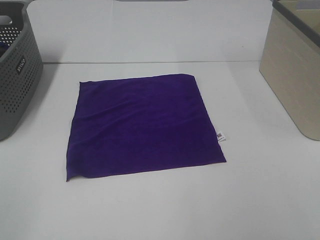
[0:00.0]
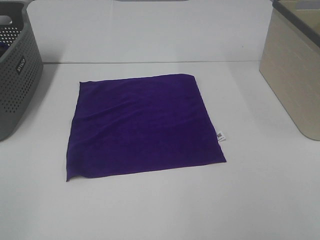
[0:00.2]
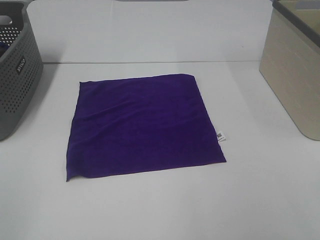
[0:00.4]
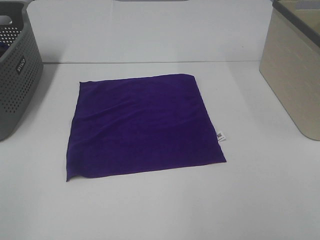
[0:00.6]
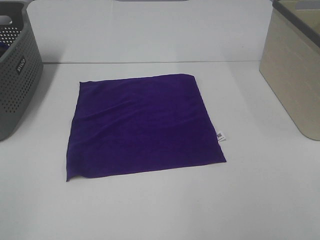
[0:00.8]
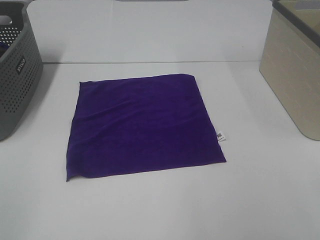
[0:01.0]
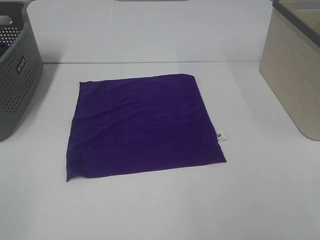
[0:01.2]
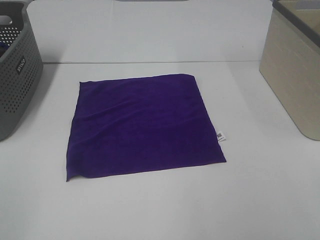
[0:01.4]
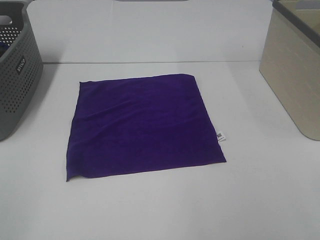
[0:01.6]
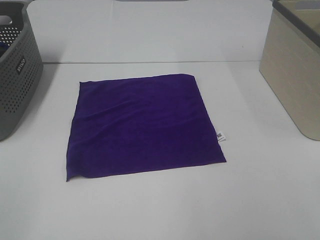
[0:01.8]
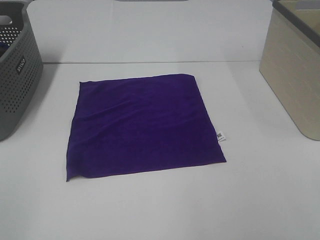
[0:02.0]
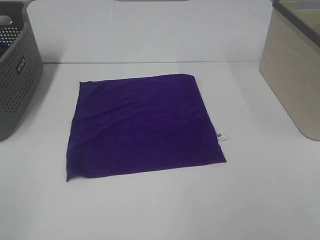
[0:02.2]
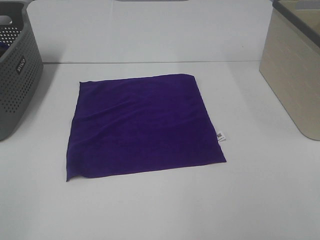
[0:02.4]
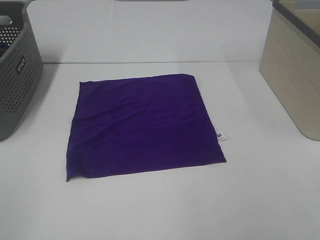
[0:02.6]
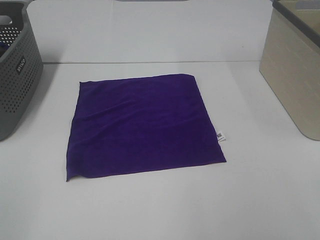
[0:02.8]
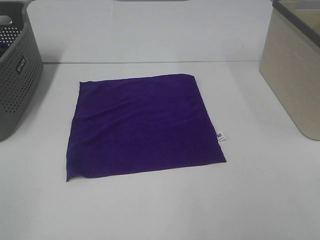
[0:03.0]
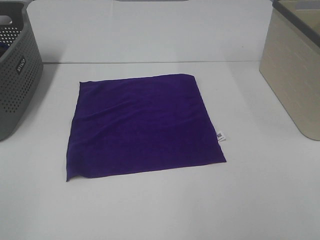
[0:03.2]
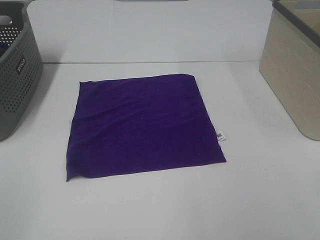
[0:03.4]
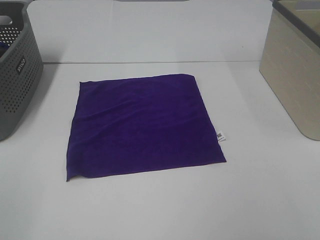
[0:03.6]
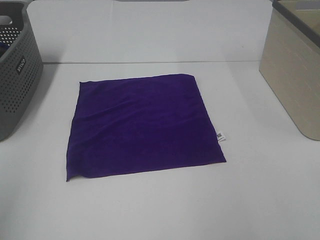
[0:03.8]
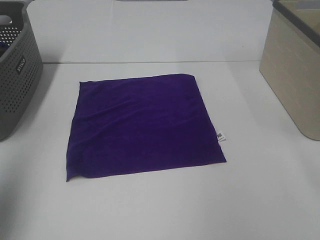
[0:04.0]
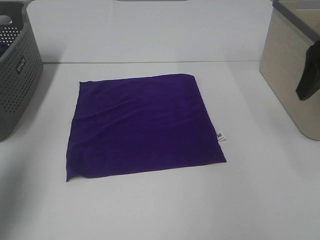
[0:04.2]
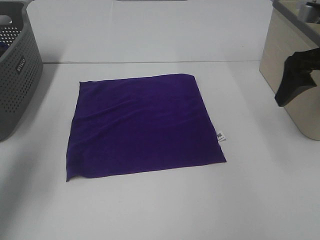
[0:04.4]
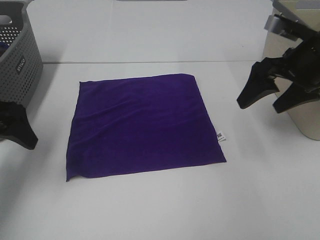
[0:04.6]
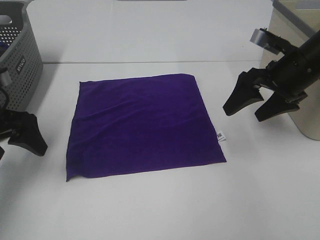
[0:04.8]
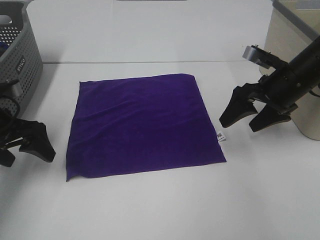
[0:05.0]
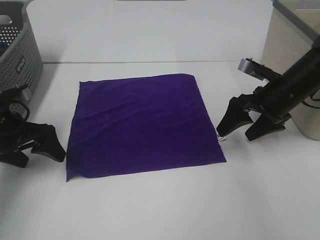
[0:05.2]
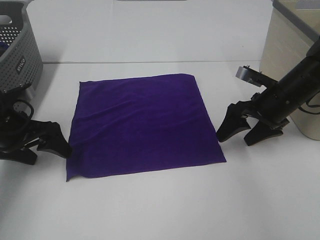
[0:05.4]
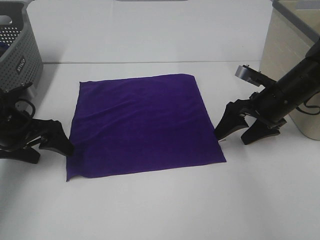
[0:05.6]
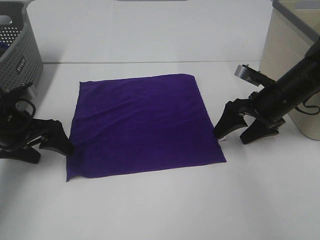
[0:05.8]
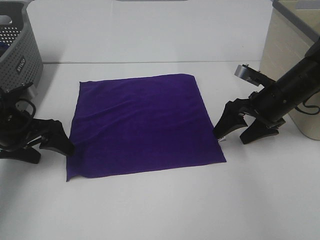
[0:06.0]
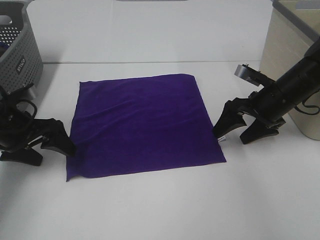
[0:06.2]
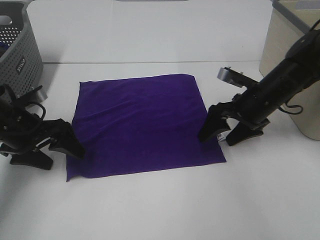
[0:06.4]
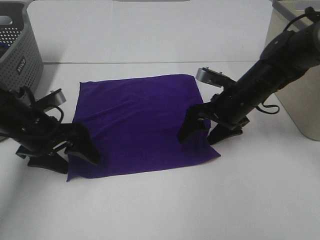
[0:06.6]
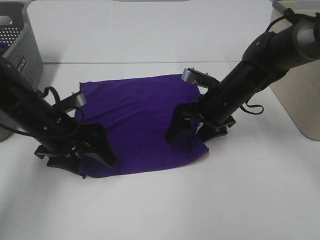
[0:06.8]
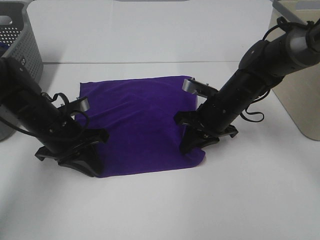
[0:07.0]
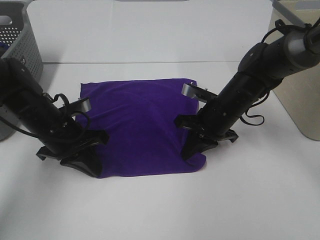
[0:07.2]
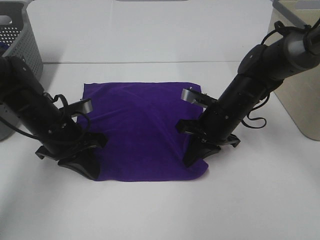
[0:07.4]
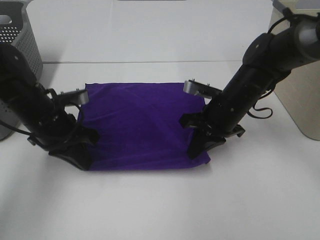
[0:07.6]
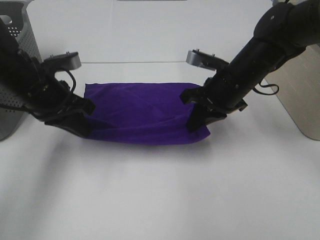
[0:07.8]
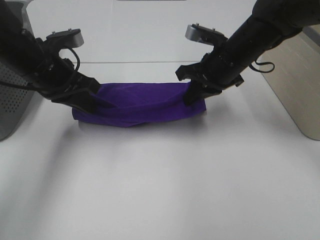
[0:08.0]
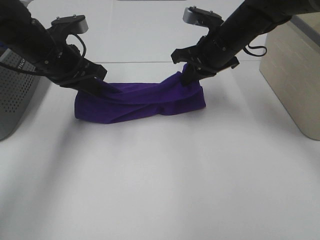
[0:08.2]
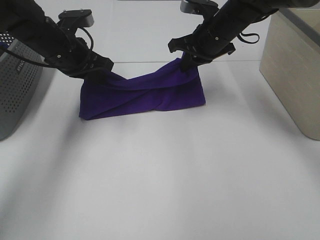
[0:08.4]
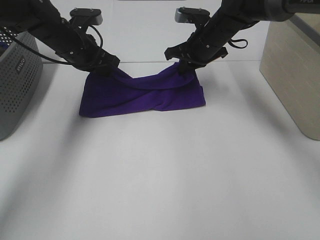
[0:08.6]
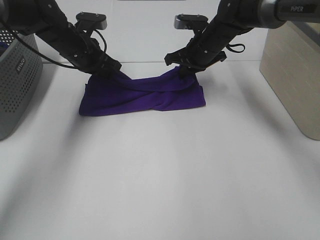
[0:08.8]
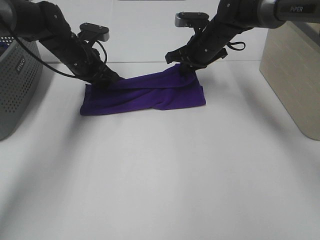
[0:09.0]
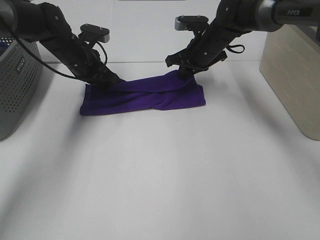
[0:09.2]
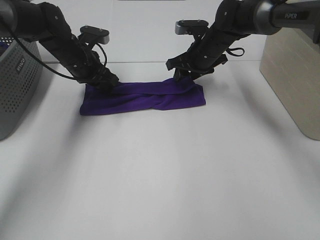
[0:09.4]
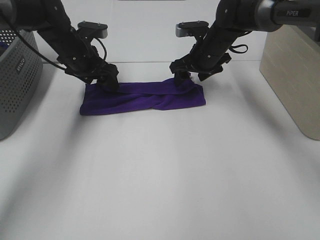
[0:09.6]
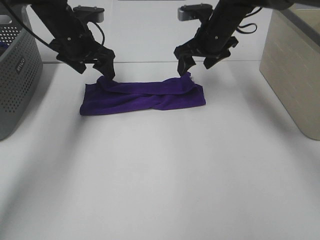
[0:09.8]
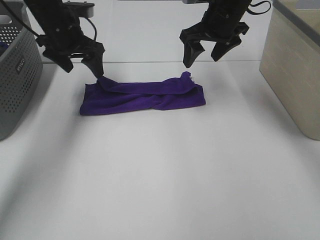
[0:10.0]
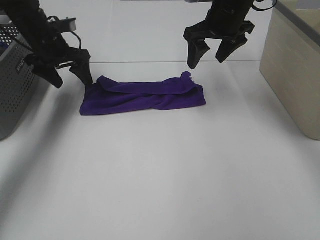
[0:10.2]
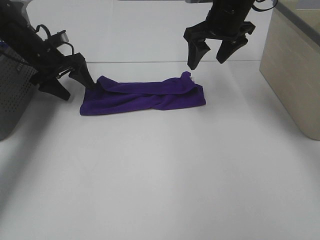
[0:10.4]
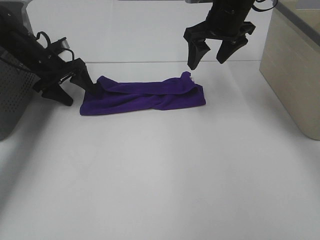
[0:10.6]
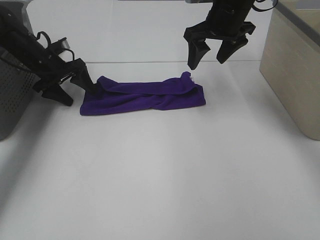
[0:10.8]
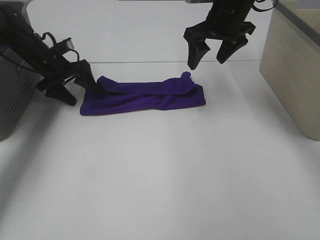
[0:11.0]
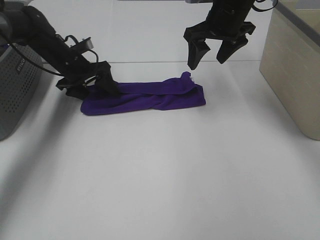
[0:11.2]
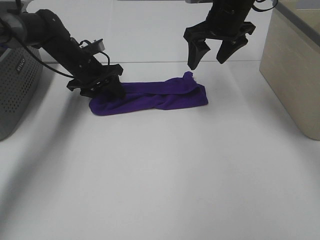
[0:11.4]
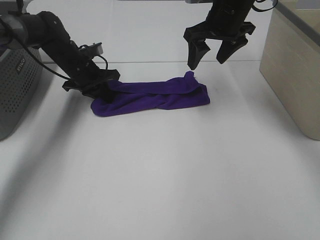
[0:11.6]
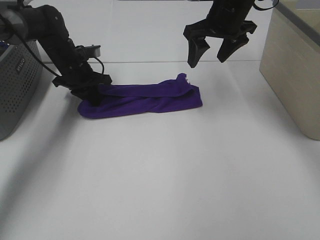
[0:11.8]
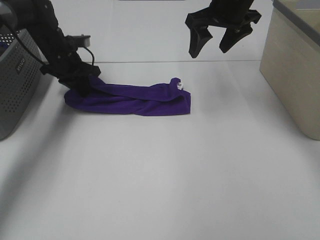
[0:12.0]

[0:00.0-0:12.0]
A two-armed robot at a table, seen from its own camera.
Task of the whole recording: Fold towels.
Step, 0:00.0 to 0:07.4: Left hand: grab the bottom left corner of purple towel.
Step, 0:00.0 to 0:07.4: Right hand: grab the bottom right corner of purple towel.
Step, 0:07.6 to 0:09.2: Left hand: fold the purple towel up.
Step, 0:07.6 to 0:09.2: Right hand: fold the purple towel up.
0:00.0 to 0:03.0: Both grippers stay put.
0:03.0 to 0:04.4: The two grippers go roughly 30 cm forward.
0:04.4 to 0:06.0: The right gripper shifts roughly 15 cm downward, while the left gripper heads downward and forward, covering approximately 15 cm.
0:06.0 to 0:07.6: The left gripper shifts some 10 cm to the right, and closes its fingers. Meanwhile the right gripper shifts approximately 10 cm to the left, and closes.
0:07.6 to 0:09.0: The two grippers go some 15 cm forward.
0:09.0 to 0:10.4: The right gripper moves upward, about 10 cm, and opens its fingers. Meanwhile the left gripper goes approximately 10 cm to the left, and opens.
0:10.4 to 0:12.0: The left gripper closes.

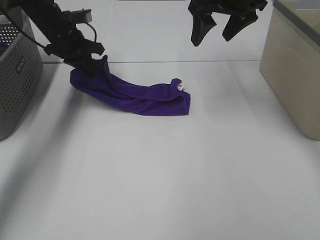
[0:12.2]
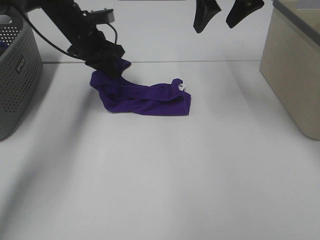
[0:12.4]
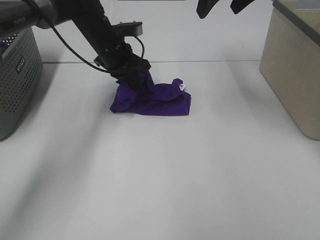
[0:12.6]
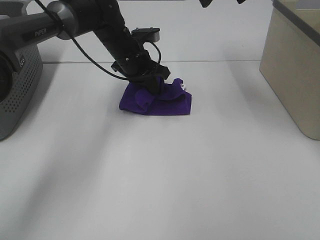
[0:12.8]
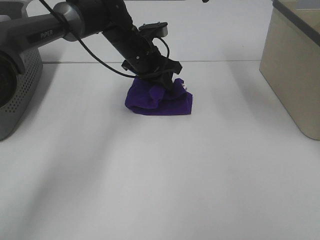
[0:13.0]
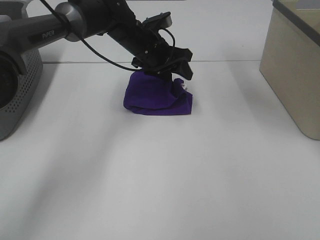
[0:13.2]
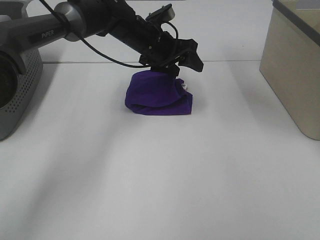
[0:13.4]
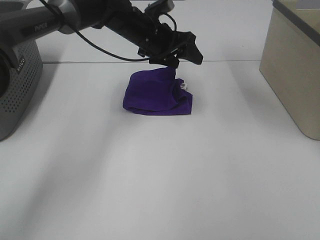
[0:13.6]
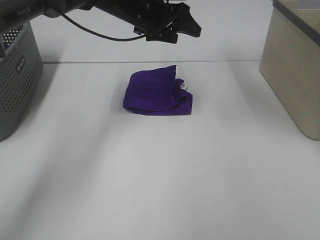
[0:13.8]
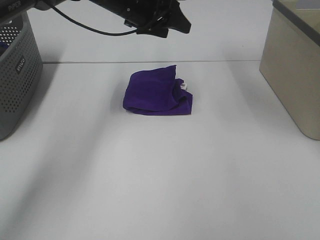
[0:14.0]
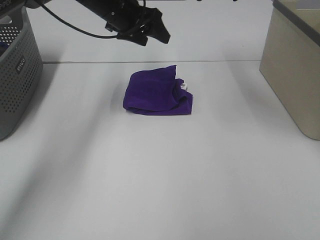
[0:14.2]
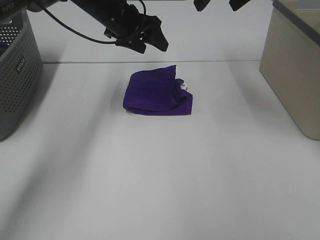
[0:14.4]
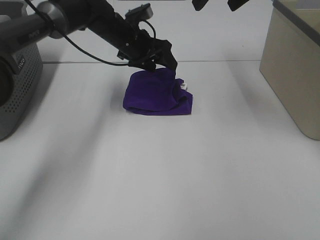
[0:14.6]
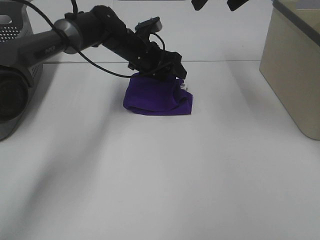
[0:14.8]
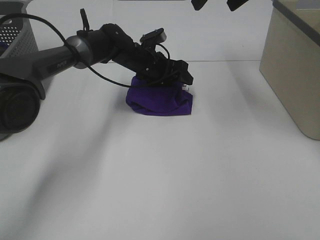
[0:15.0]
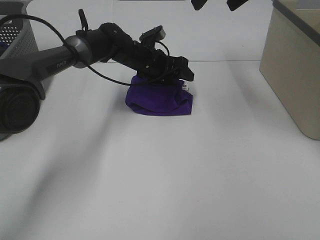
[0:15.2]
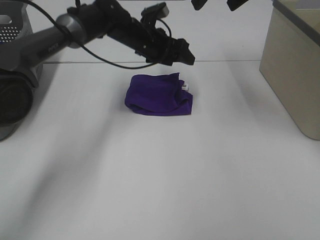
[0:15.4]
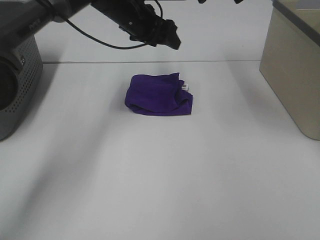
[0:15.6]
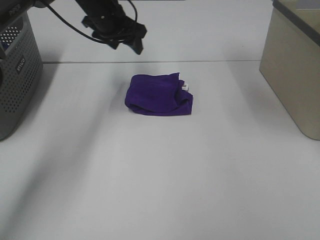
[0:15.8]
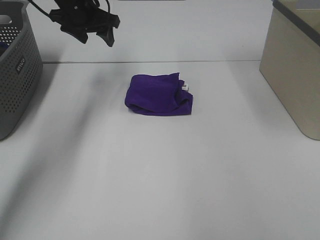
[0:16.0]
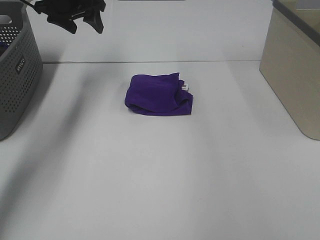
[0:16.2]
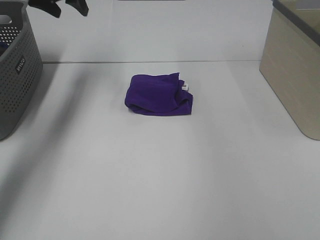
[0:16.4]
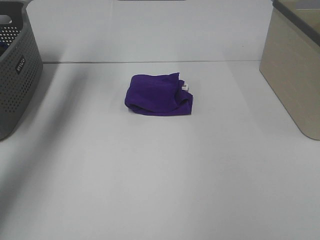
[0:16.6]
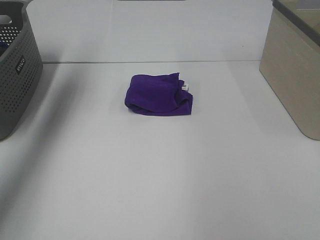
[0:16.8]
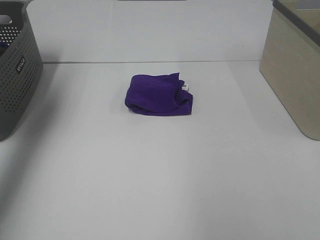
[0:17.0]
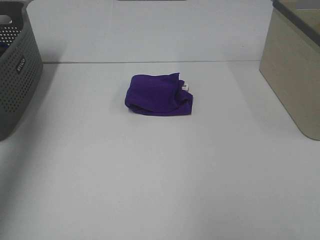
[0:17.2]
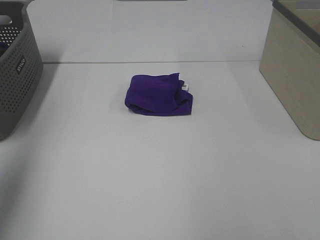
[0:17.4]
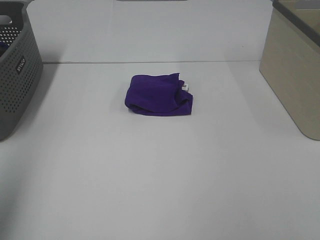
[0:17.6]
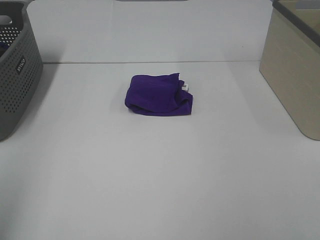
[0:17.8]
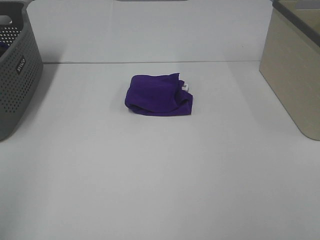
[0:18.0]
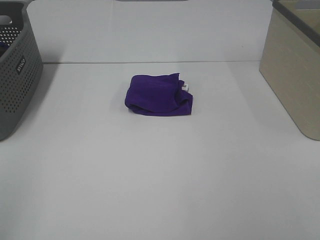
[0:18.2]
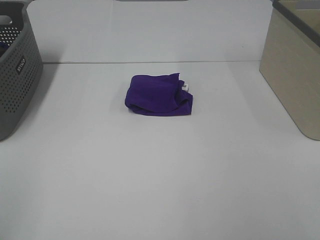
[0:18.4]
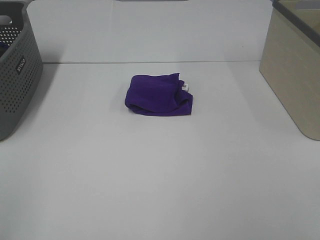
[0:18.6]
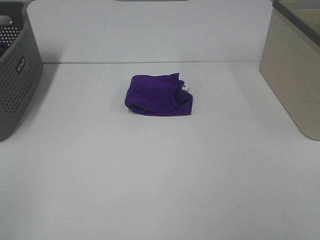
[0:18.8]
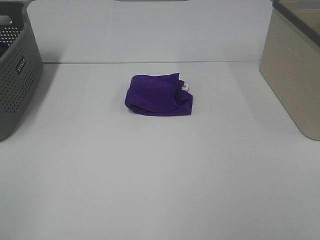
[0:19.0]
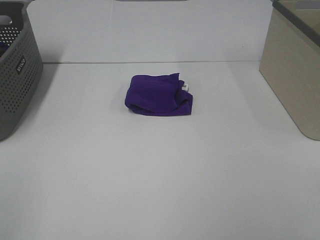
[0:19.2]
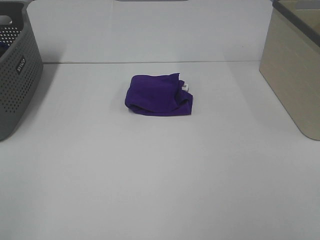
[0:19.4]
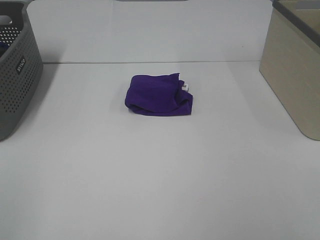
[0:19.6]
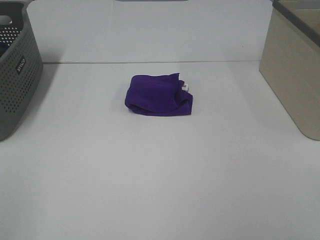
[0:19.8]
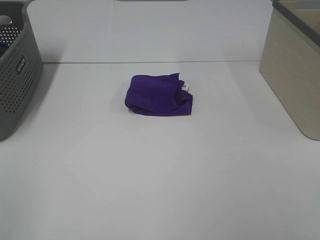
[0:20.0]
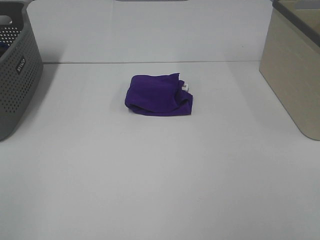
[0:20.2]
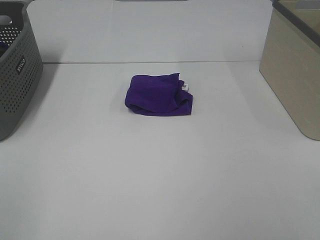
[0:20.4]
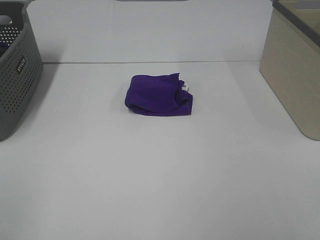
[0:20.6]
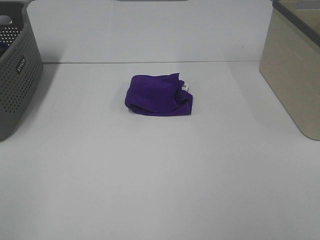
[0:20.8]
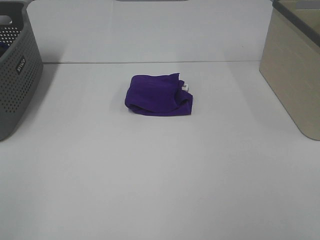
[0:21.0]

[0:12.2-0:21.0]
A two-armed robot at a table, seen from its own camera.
Task of the whole recording: Fold towels.
Step, 0:13.2 to 0:15.2: Left hand: adjust the purple towel.
0:12.2 to 0:13.6: The left gripper is displaced to the right by roughly 15 cm, and opens. Meanwhile the right gripper is displaced upward by about 10 cm.
0:13.6 to 0:15.2: The left gripper travels downward by roughly 10 cm.
0:15.2 to 0:16.6: The right gripper is displaced to the right and backward by roughly 20 cm. The left gripper shifts roughly 35 cm upward and to the left.
0:16.6 to 0:18.0: The left gripper goes approximately 40 cm backward.
0:19.6 to 0:21.0: Neither gripper changes place.

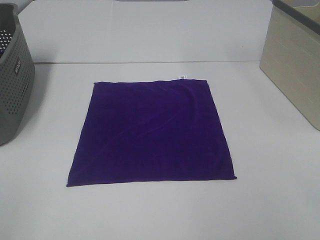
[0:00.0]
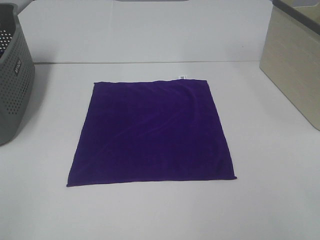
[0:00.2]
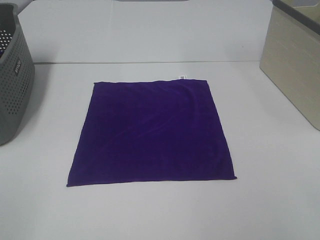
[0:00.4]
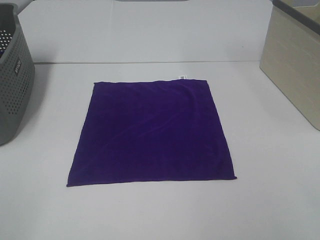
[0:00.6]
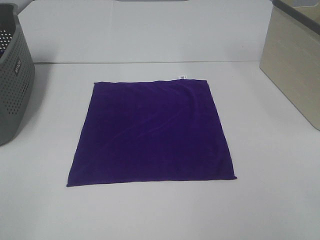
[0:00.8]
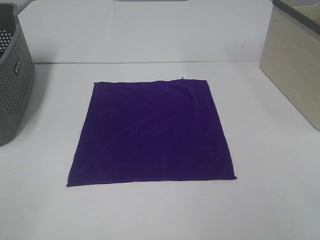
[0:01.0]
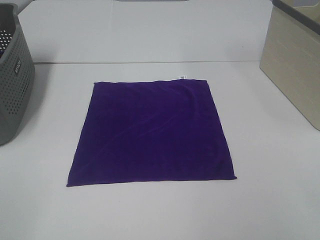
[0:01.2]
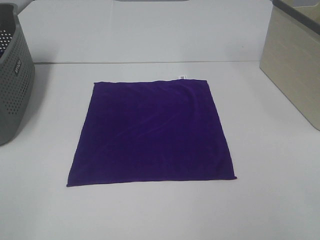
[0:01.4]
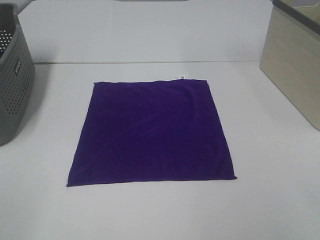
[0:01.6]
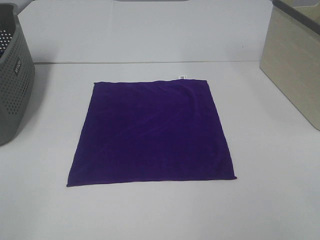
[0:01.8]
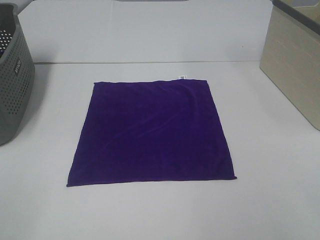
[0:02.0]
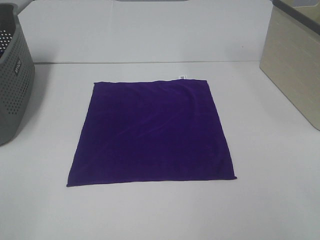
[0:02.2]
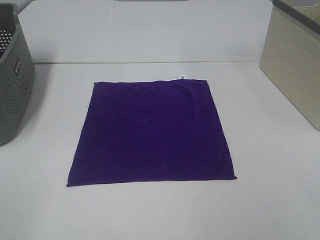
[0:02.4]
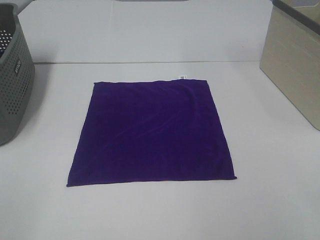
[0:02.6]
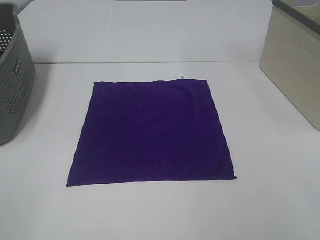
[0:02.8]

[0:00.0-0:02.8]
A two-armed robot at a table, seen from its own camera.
Task of the whole recording: Fold towels.
0:00.0 to 0:02.8: Both grippers stay put.
